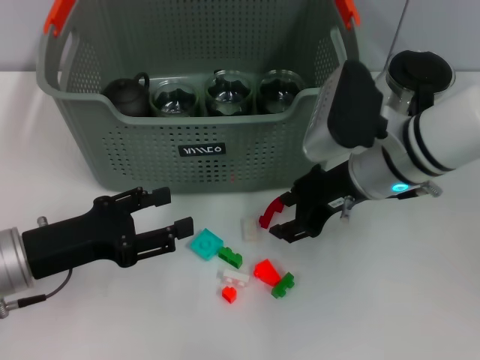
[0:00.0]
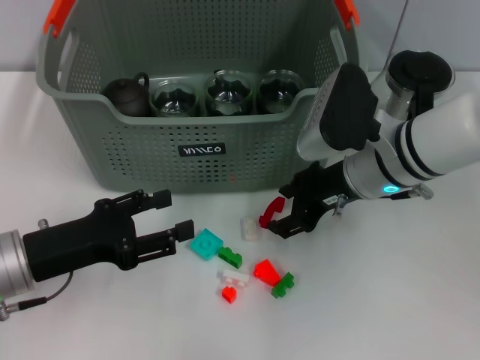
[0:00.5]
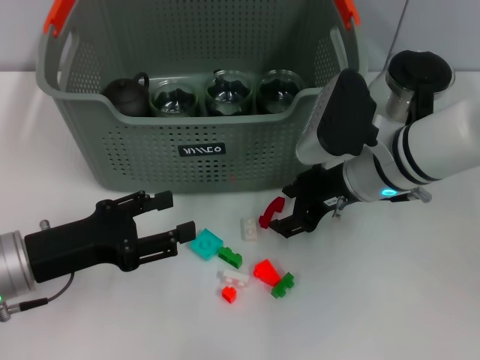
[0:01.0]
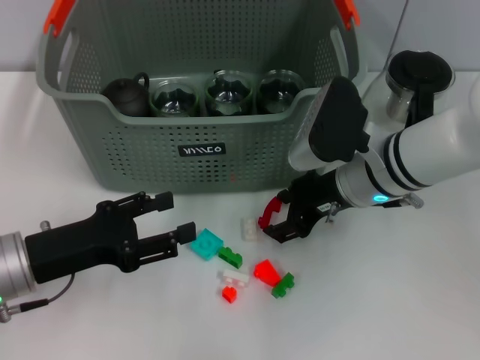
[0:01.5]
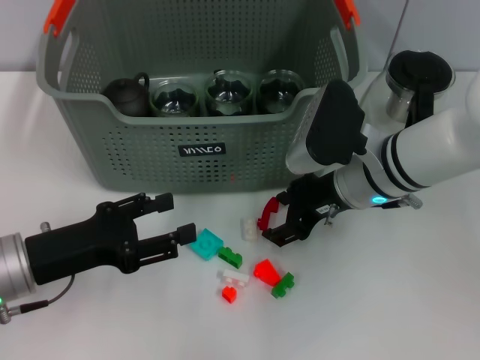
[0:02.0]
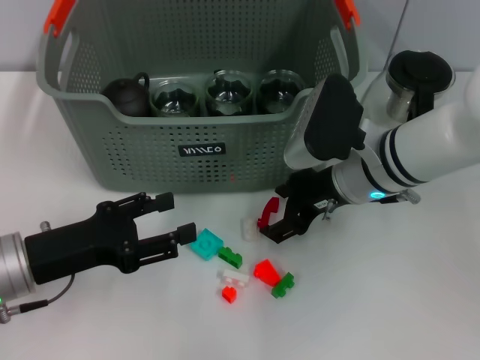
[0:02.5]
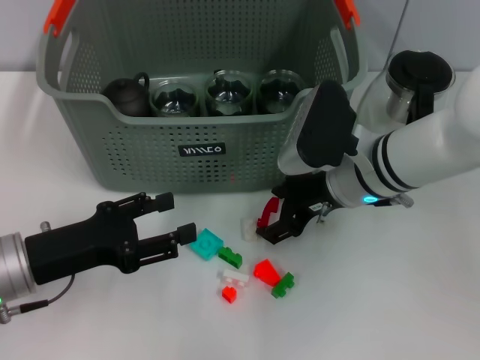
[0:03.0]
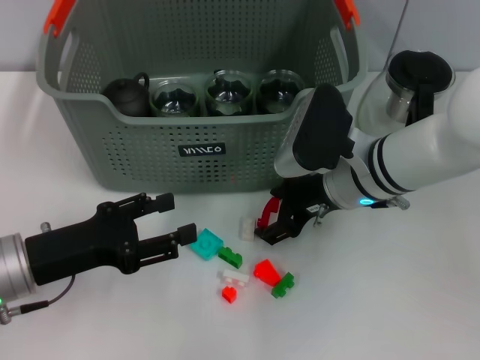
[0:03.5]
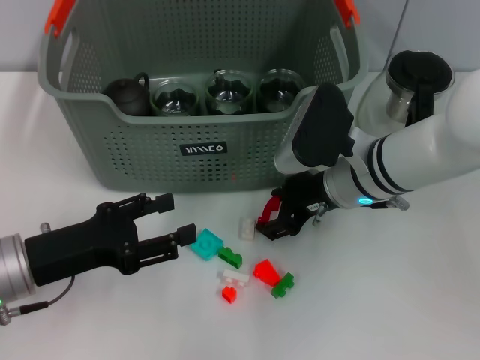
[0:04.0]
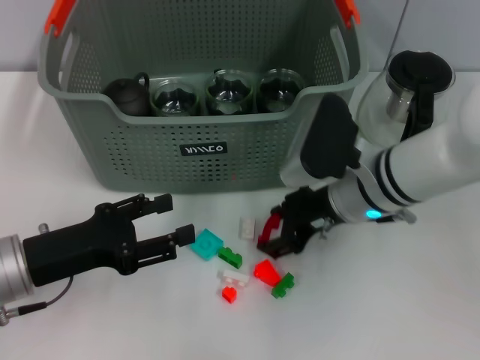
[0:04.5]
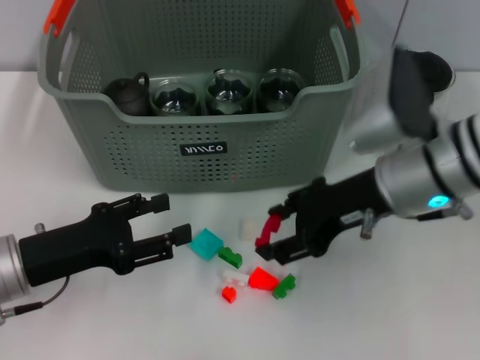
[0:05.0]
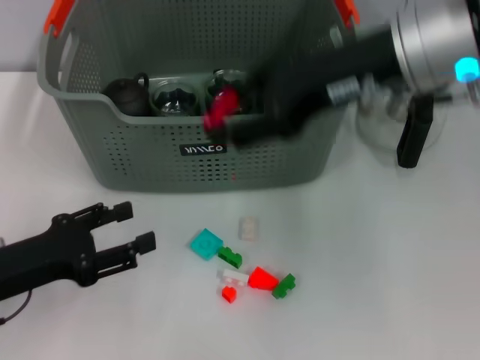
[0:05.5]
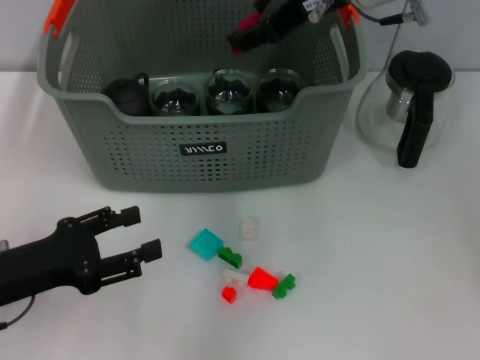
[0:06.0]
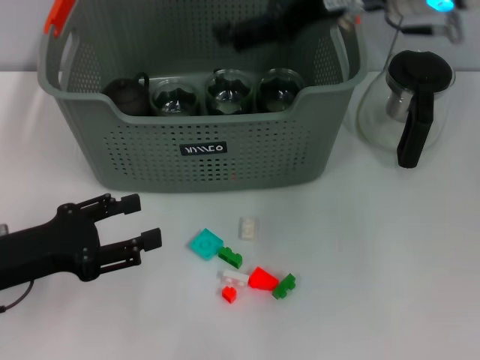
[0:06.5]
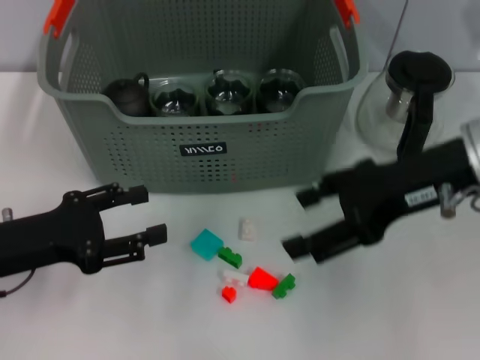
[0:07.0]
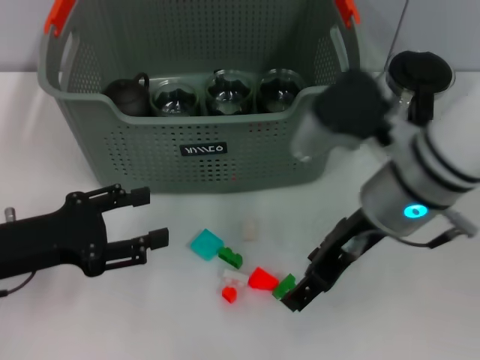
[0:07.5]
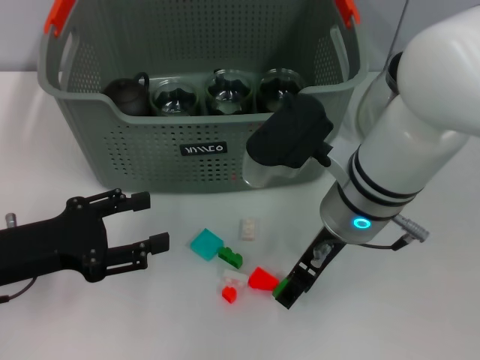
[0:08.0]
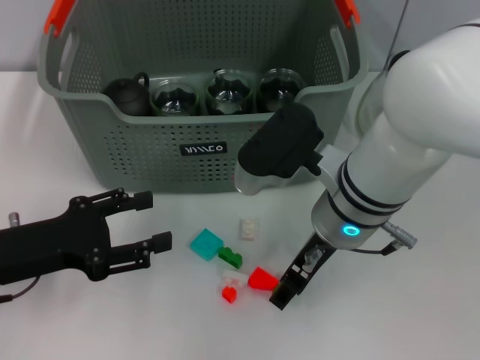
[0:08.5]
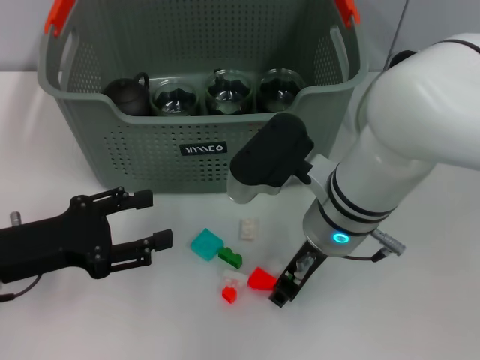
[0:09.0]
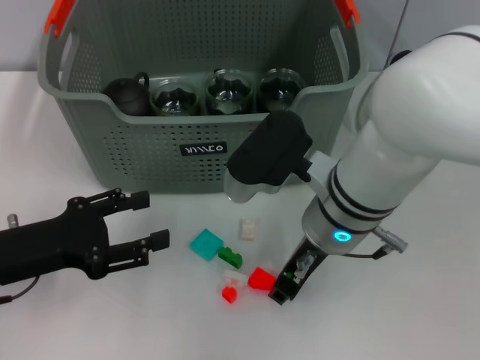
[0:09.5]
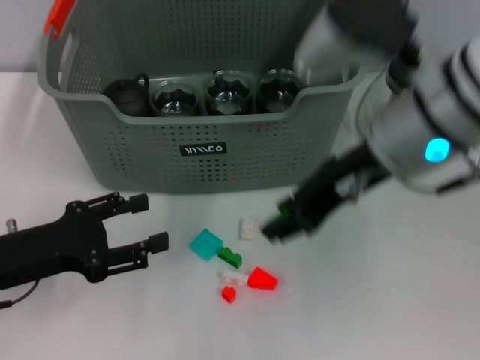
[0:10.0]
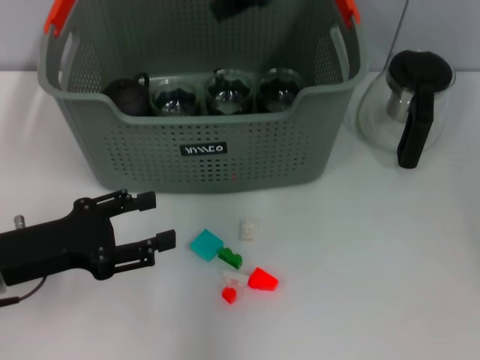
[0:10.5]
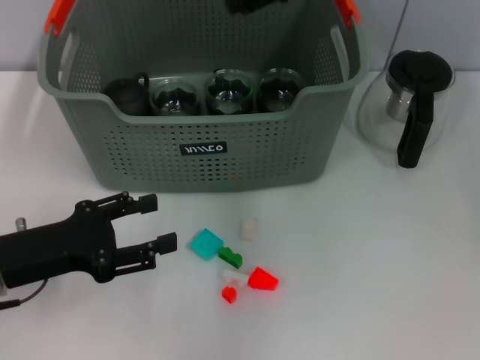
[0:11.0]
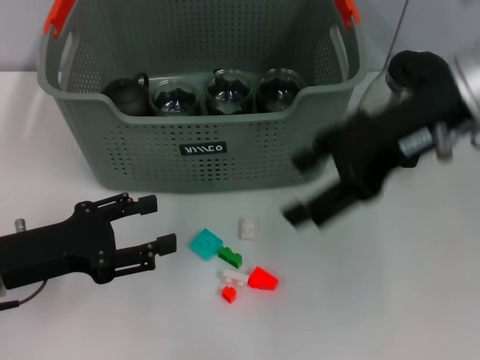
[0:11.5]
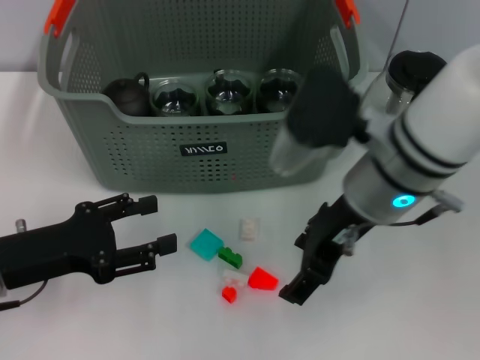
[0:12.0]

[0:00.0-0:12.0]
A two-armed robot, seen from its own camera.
Task of the whole recording: pick up the teacup on the table and place it into the storage bin, pick up the block on the table and place it into the storage bin.
Step, 0:00.0 to 0:04.0: Grasp the red block with right gripper.
Step, 0:04.5 to 0:06.0: Place the red block in the storage box with right gripper.
Step, 0:06.5 to 0:09.0: Grasp the green block with right gripper.
Step, 0:09.5 to 0:10.5: Place the green block in the storage box with right gripper.
0:00.0 to 0:02.0: There are only small adjustments of the grippers.
0:02.0 to 0:04.0: Both grippers stay put.
0:04.0 to 0:06.0: The right gripper is displaced upward by approximately 20 cm.
0:06.0 to 0:08.0: The right gripper moves downward and backward, approximately 15 cm.
0:08.0 to 0:10.0: The right gripper moves upward, about 10 cm, and closes up.
0:10.0 to 0:12.0: The right gripper goes about 5 cm downward, and opens up.

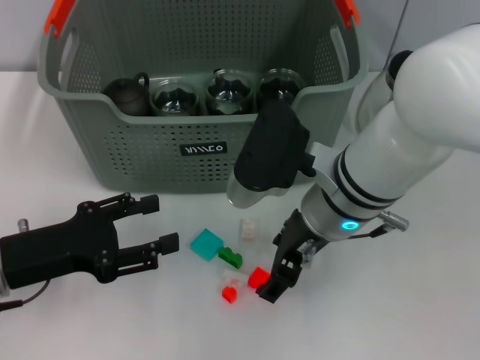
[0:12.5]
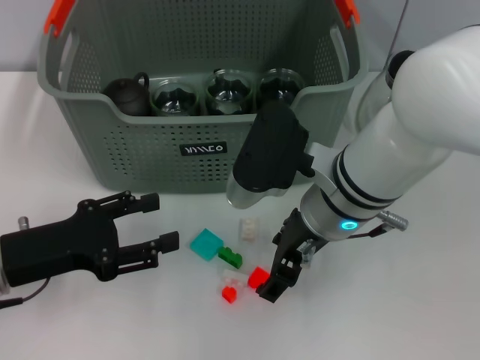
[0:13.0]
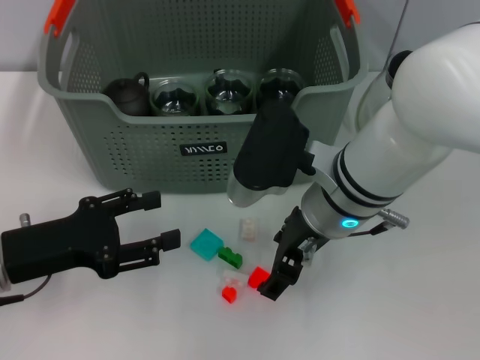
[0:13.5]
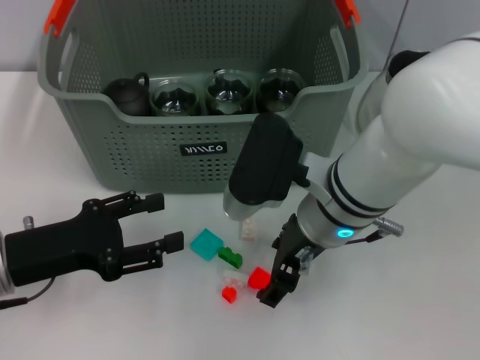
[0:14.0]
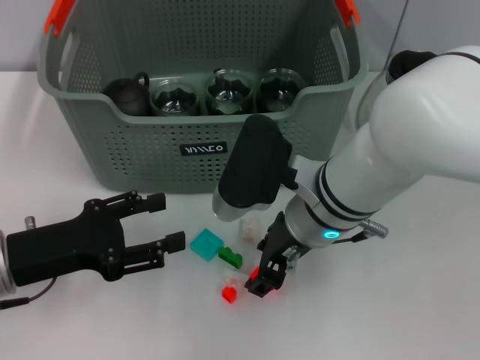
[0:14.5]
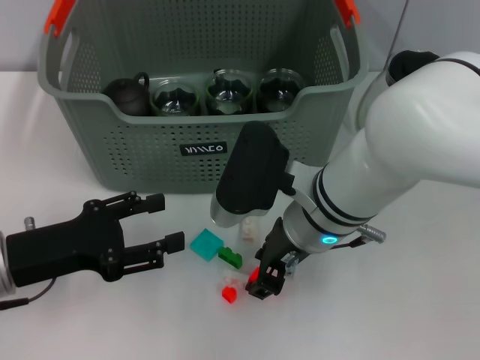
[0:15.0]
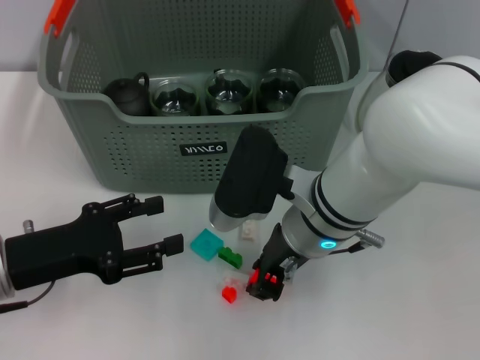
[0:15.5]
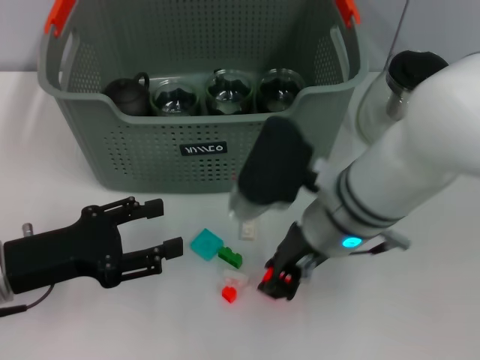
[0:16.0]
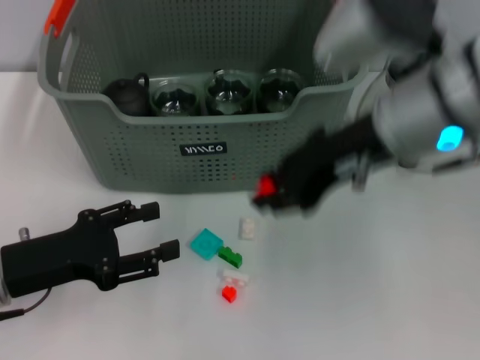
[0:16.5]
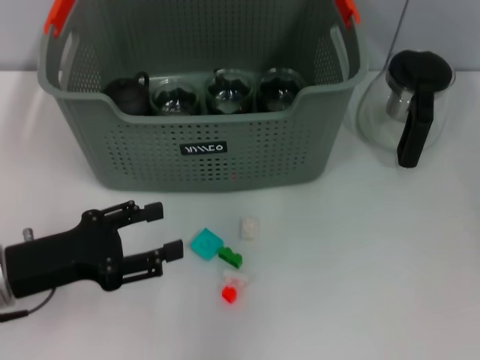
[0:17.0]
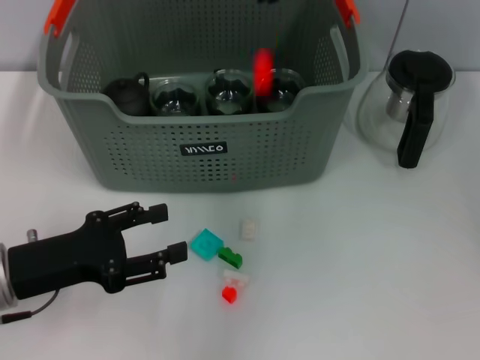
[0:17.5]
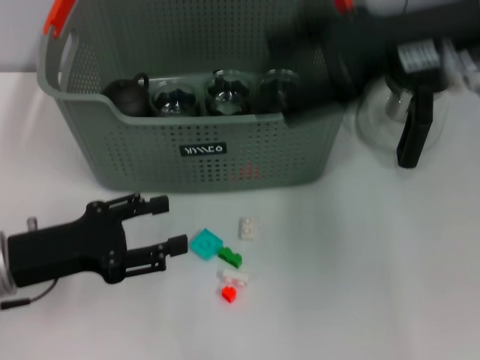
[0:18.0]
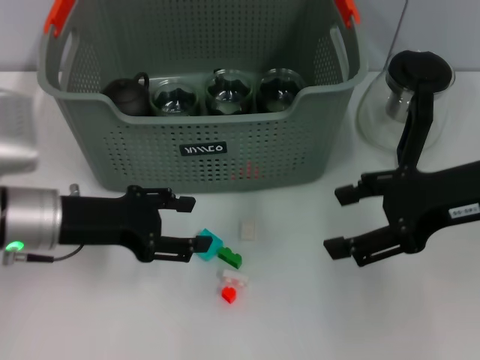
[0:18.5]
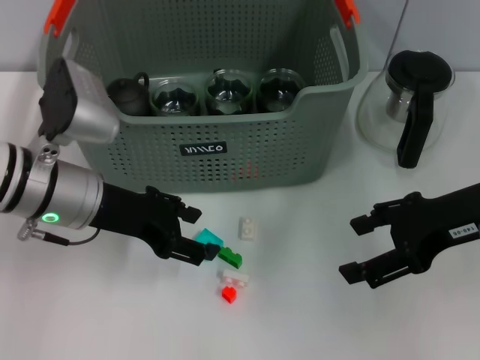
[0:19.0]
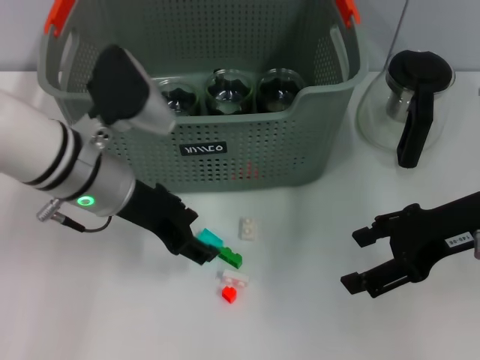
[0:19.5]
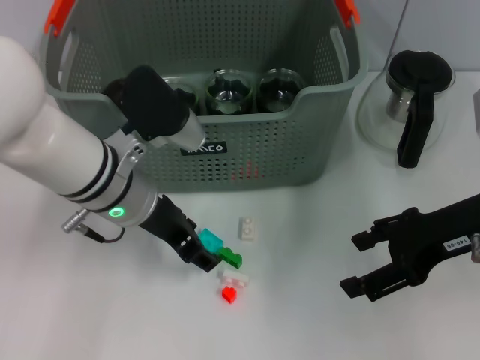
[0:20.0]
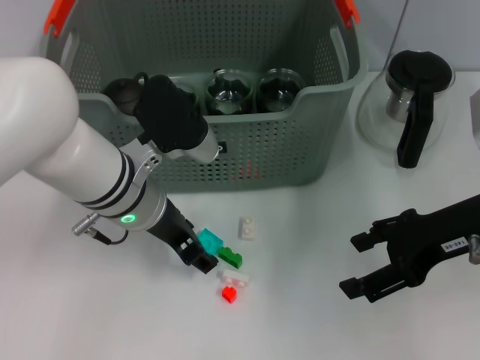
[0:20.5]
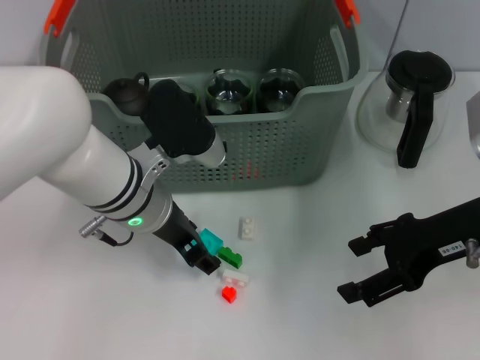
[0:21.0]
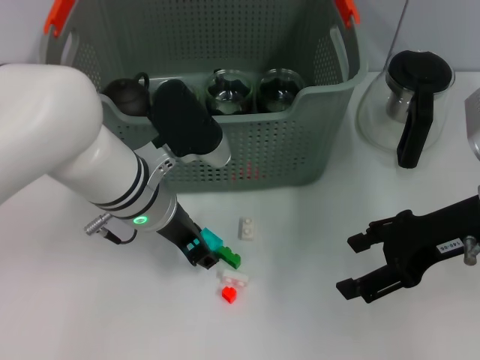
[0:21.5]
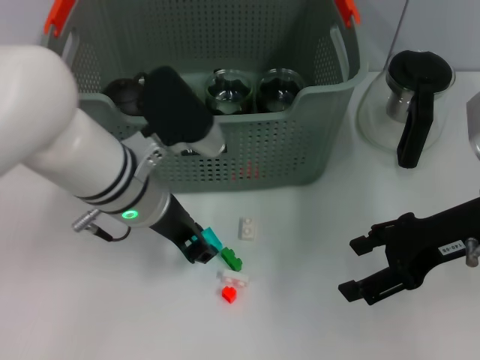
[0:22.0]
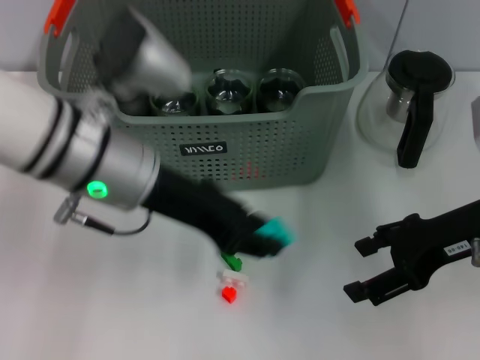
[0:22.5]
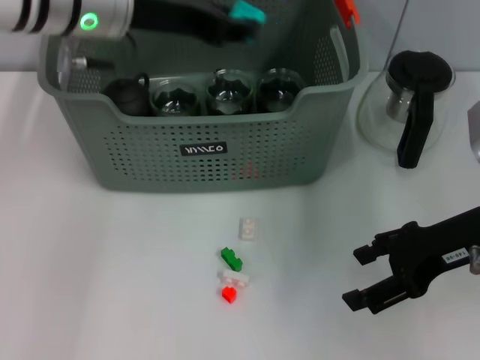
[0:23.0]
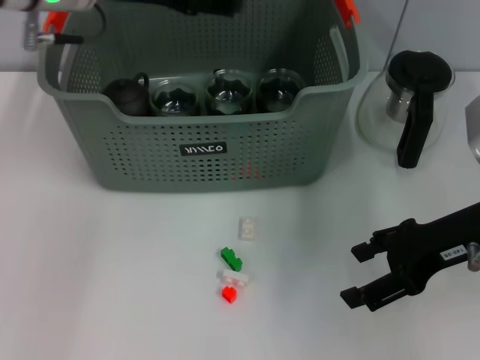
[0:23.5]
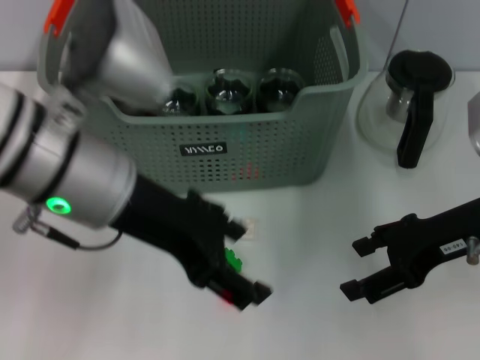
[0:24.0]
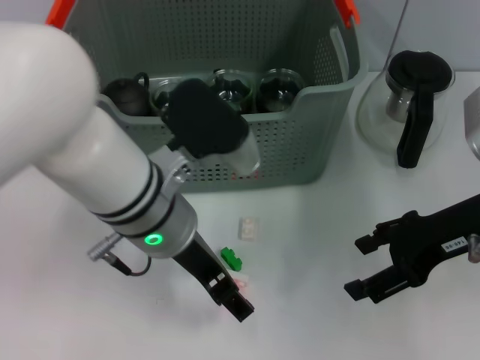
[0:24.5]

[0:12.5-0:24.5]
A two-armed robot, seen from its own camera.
Task of the whole recording: pick up the teacup on the table and place it into the storage bin, pick up the block on the table and place it into the storage bin.
Step, 0:12.5 to 0:15.5: Grasp the orange block with right gripper.
Step, 0:16.0 to 0:17.5: Place the orange block in the storage box with right gripper.
Step, 0:18.0 to 0:21.5: Grasp the light blue block with left gripper.
Step, 0:22.0 to 0:23.0: Place the light blue block in the storage box with left gripper.
0:12.5 to 0:14.5: There are only small adjustments of the grippers.
0:14.5 to 0:16.5: The right gripper heads upward and to the right, covering roughly 15 cm, and closes its fingers.
0:16.5 to 0:18.5: The right gripper shifts roughly 15 cm to the right and downward, and opens; the left gripper is displaced forward by roughly 5 cm.
0:18.5 to 0:20.5: The left gripper shifts approximately 10 cm to the right.
0:20.5 to 0:22.5: The left gripper heads upward, covering some 10 cm, and closes.
0:22.5 to 0:24.5: The left gripper reaches some 10 cm upward, then returns, and opens.

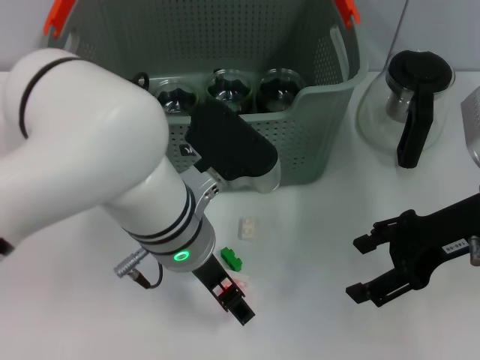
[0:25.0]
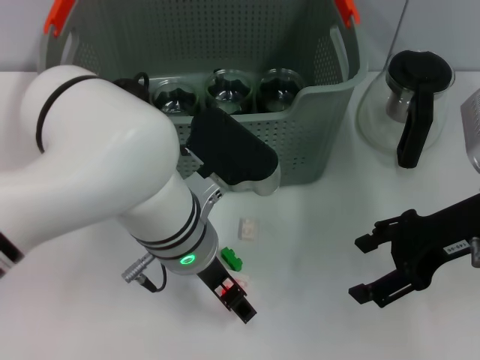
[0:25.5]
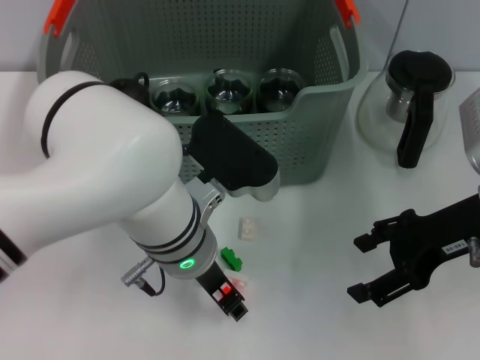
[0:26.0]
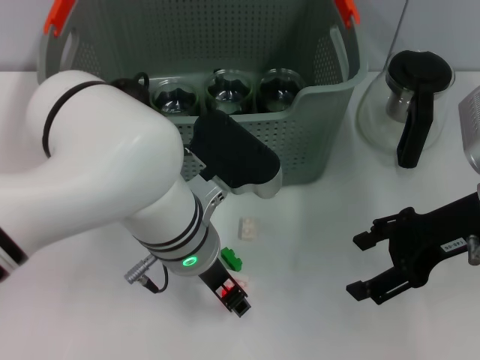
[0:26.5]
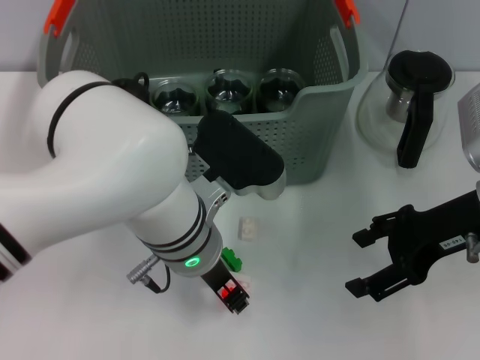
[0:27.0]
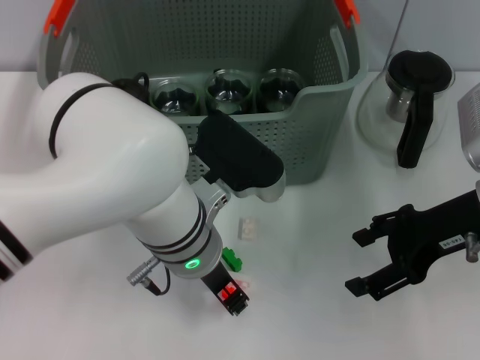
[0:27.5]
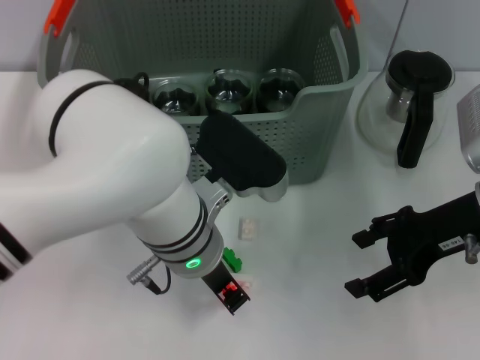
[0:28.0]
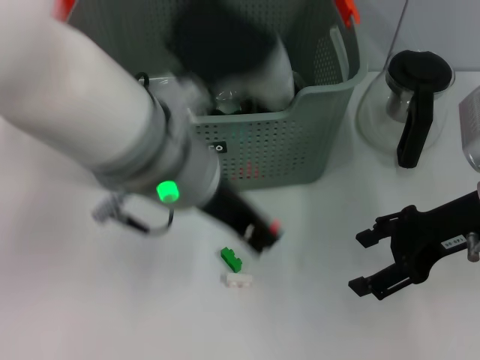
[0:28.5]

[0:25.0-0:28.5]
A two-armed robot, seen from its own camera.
Task of the whole recording: pick up the teacup on the table and place it into the storage bin, pick up the block on the table and place it into the storage bin.
Step, 0:25.0 to 0:27.5: Grasp the orange block with left gripper.
0:25.0 to 0:27.0: The left gripper closes up.
0:27.0 to 0:28.5: The left gripper is displaced upward by roughly 10 cm.
